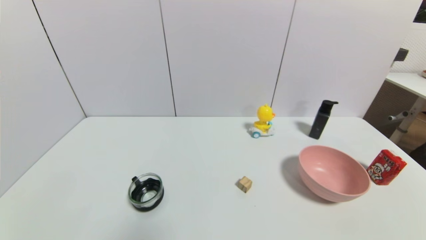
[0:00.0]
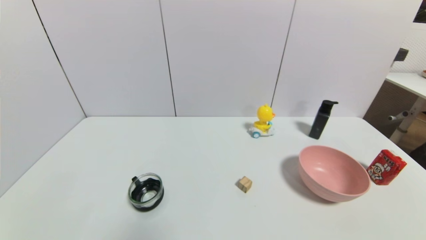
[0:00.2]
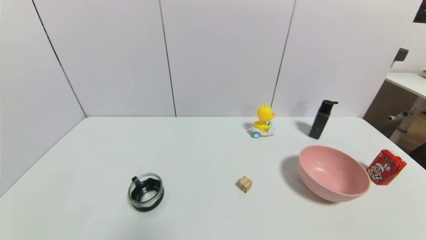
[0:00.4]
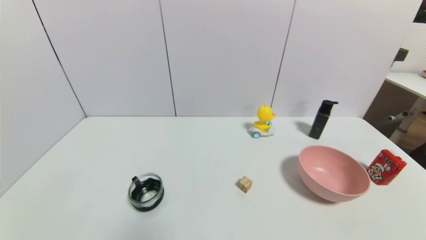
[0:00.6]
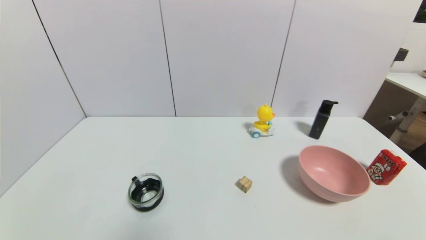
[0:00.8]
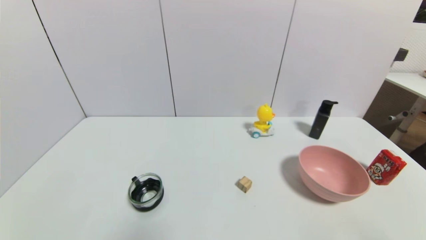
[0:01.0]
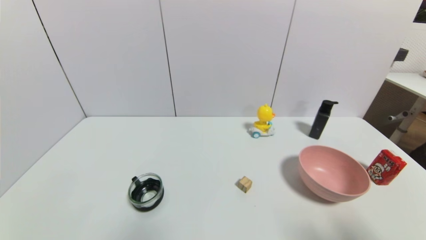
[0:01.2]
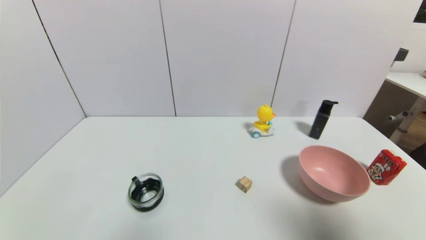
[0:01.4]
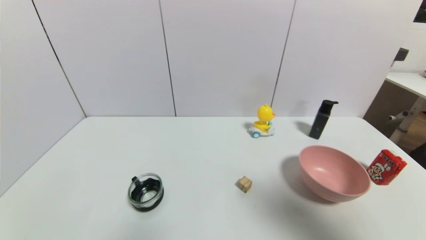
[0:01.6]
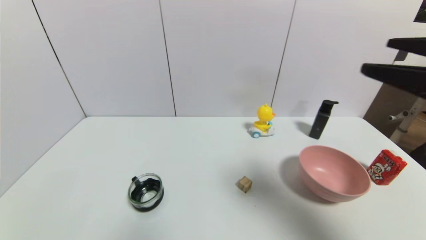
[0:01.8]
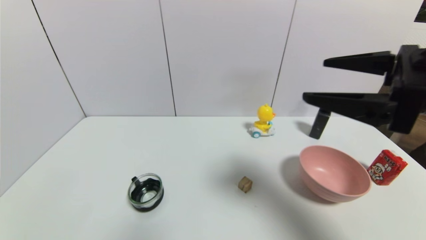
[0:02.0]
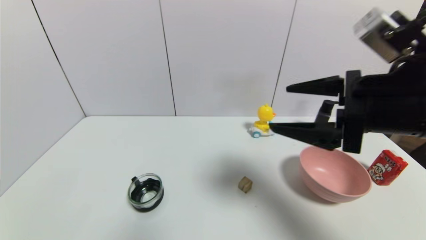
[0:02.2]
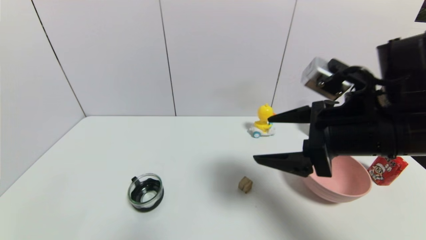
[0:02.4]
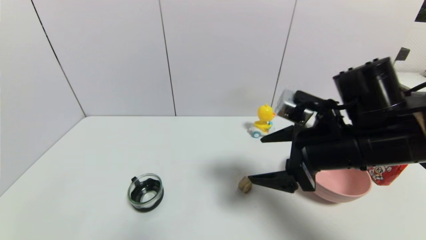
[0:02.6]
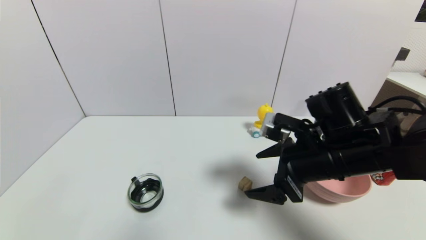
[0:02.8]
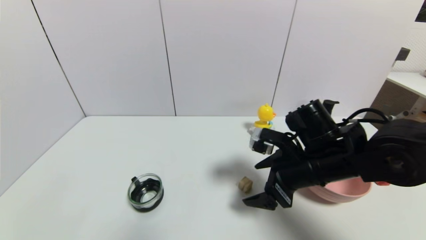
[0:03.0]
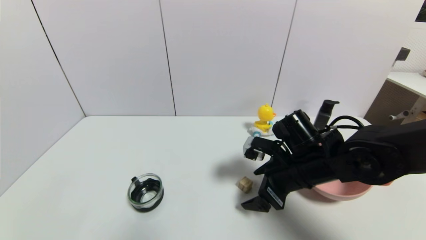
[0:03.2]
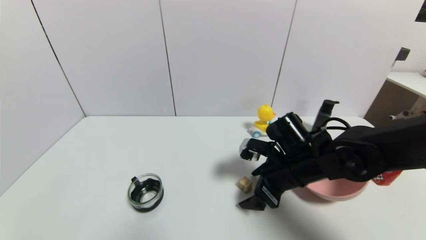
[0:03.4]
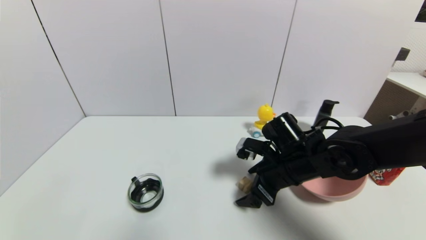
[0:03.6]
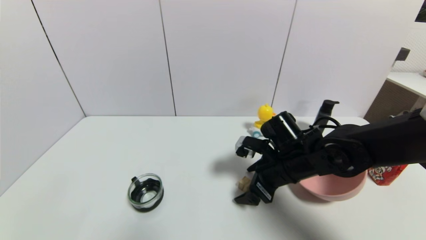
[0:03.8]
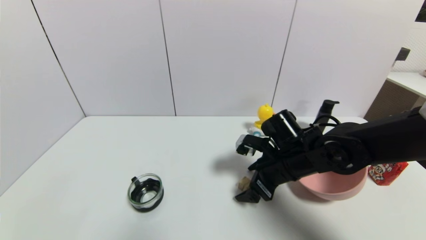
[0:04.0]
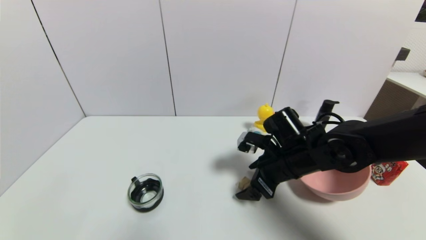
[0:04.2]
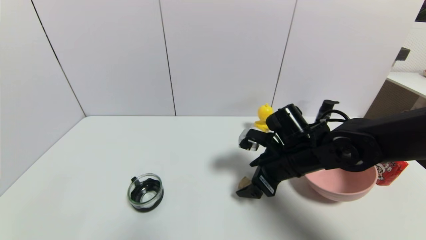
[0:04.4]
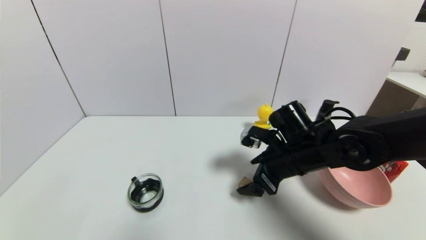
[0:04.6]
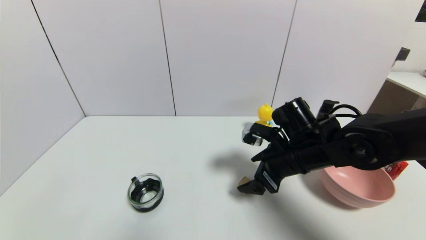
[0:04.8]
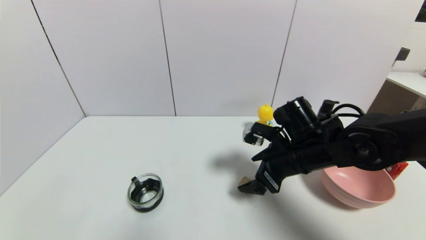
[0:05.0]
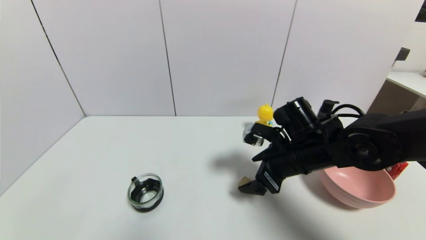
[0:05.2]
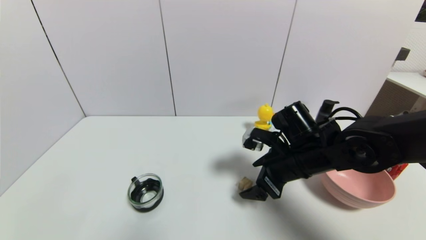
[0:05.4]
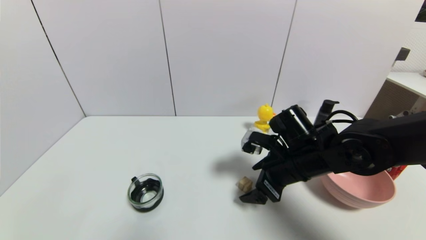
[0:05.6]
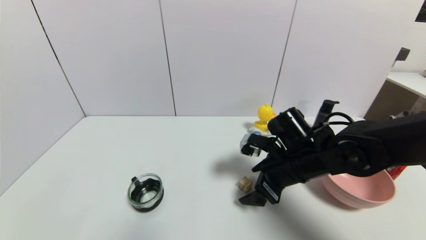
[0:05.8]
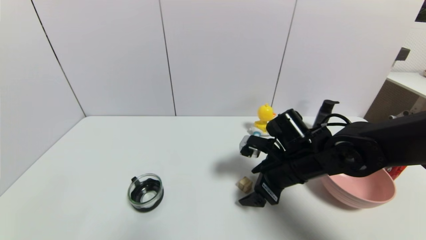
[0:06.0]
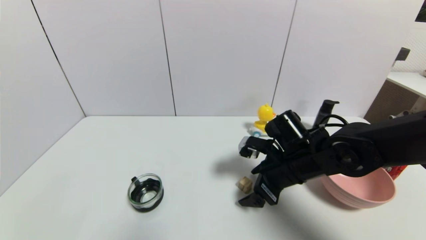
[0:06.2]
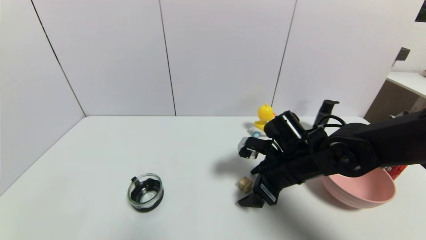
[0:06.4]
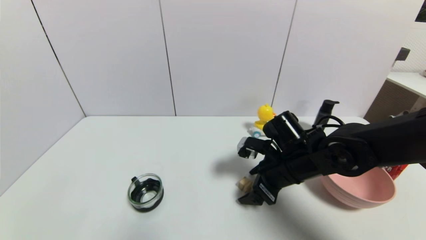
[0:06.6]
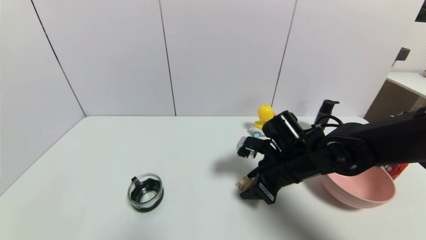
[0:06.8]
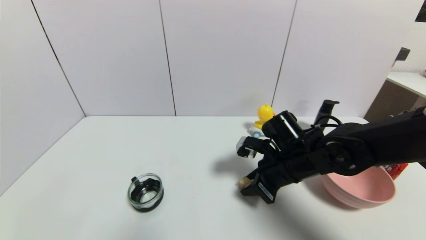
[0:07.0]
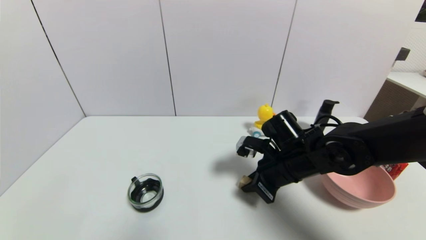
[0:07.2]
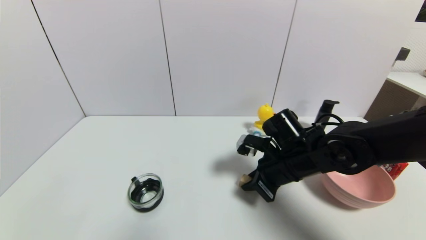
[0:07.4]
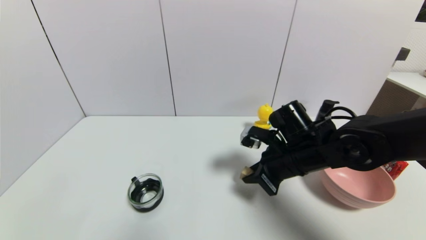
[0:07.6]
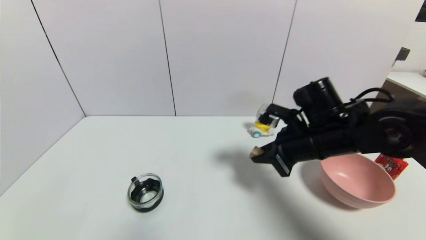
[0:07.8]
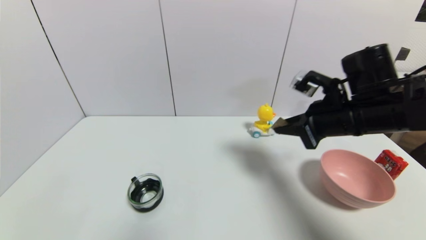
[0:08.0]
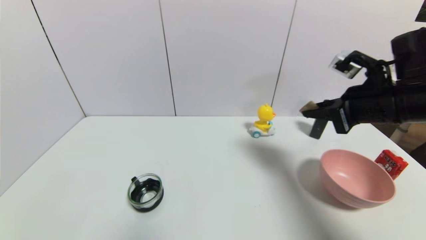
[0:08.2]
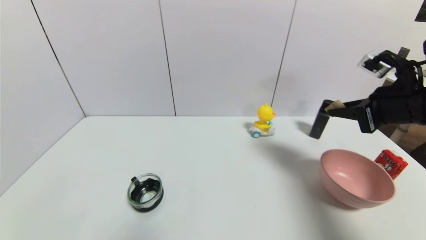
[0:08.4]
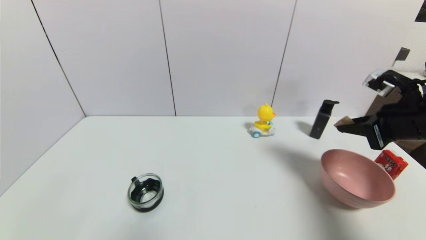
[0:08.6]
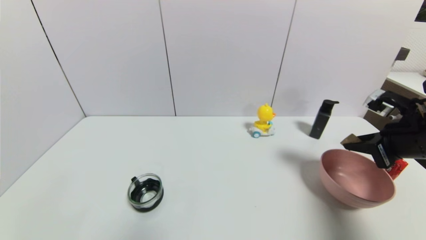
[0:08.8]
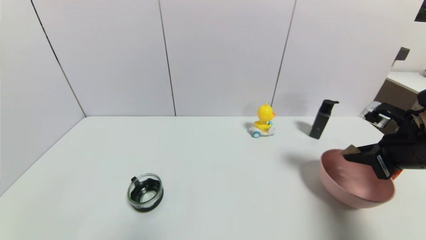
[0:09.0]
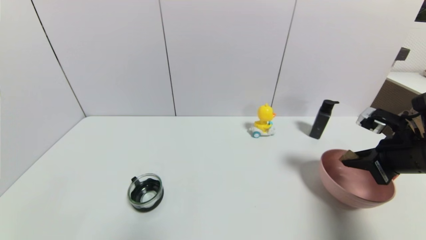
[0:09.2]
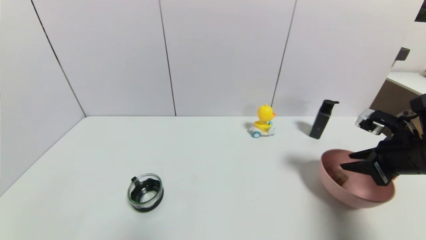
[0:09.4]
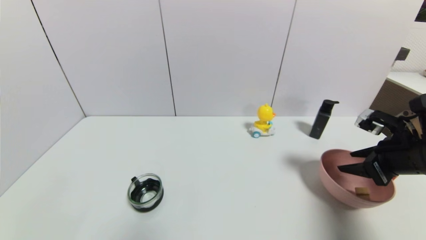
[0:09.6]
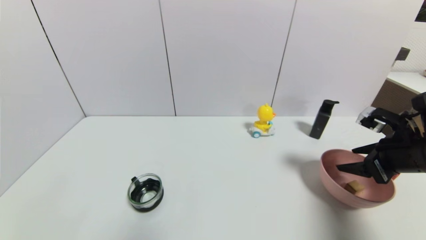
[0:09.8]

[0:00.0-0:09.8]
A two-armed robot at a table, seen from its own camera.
Task of the whole recording: use a gripper to pick the target object and place on the pink bowl.
Step, 0:00.0 to 0:07.2: Grasp the square wooden block with the right gripper.
Step, 0:07.4 to 0:09.6: Place the square wooden block on the pink bowl with the right gripper.
0:00.0 to 0:01.4: The right gripper goes approximately 25 cm upward.
0:01.4 to 0:02.8: The right gripper goes roughly 25 cm forward, to the left and downward.
0:02.8 to 0:04.2: The right gripper goes roughly 10 cm downward and forward.
0:04.2 to 0:05.6: The grippers make only small movements.
0:05.6 to 0:07.0: The right gripper closes up.
0:07.0 to 0:08.4: The right gripper is displaced to the right and upward by roughly 20 cm.
0:08.4 to 0:09.8: The right gripper shifts roughly 5 cm downward, and opens.

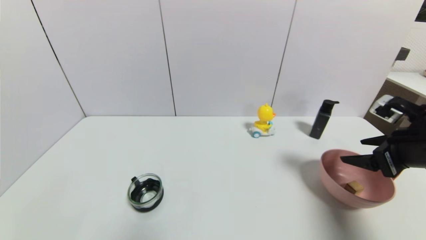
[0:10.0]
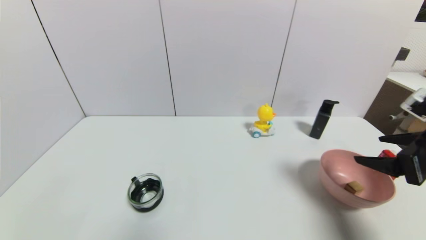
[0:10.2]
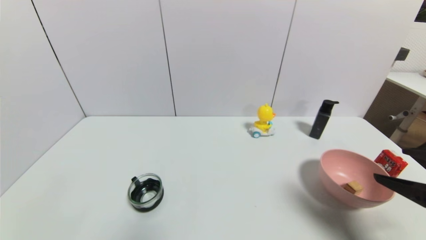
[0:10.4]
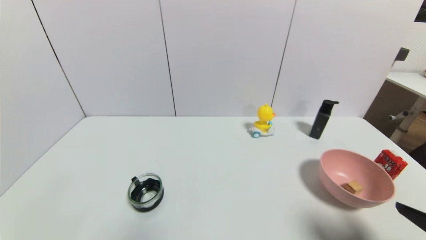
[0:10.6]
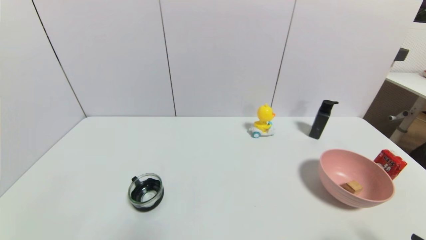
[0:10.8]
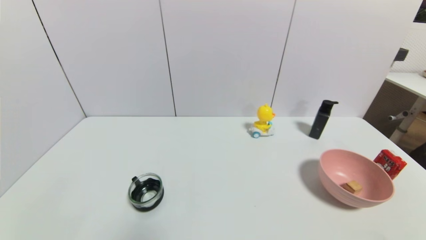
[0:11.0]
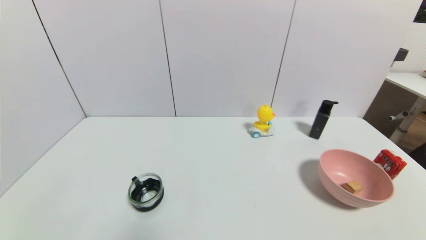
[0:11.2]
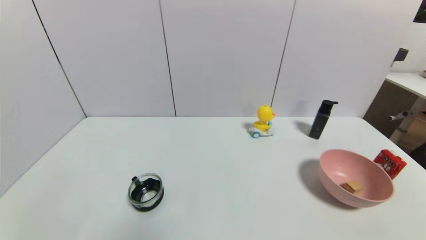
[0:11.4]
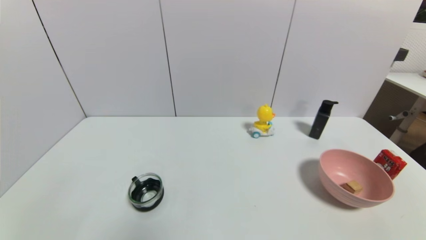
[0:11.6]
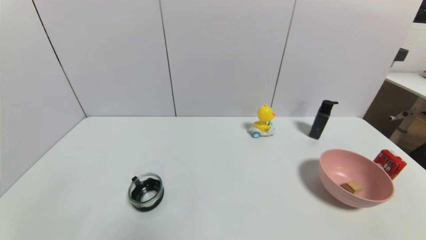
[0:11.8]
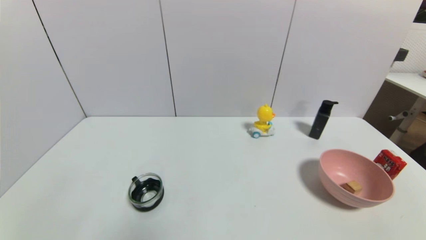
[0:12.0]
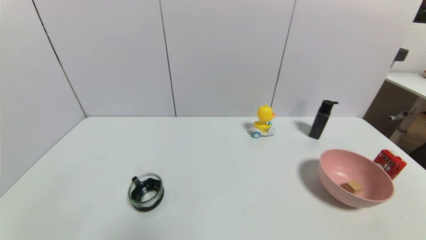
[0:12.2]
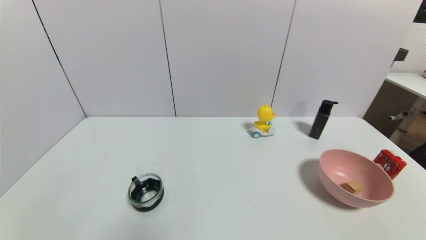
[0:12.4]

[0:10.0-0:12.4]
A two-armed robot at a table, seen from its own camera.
Task of the whole recording: use a gripper to pick the target object and place on the pink bowl.
0:10.0 to 0:11.2: The right gripper shifts roughly 25 cm backward and downward.
